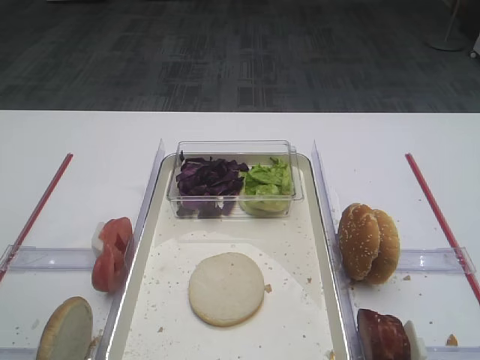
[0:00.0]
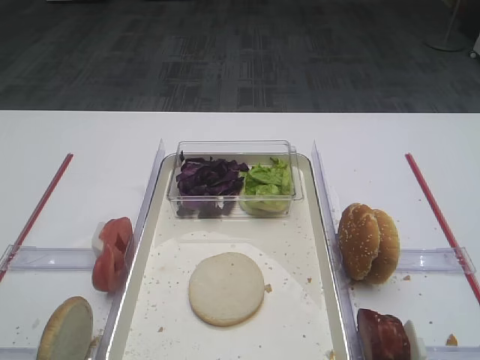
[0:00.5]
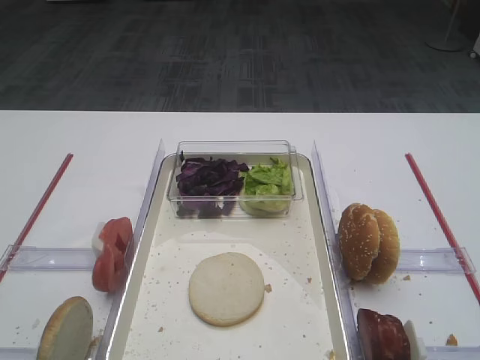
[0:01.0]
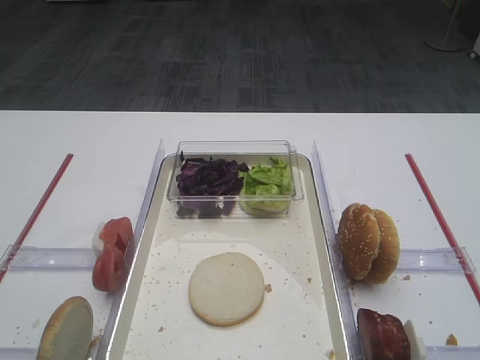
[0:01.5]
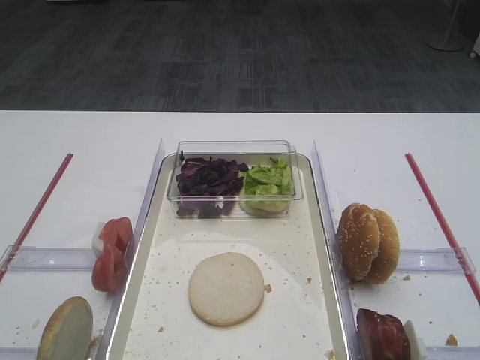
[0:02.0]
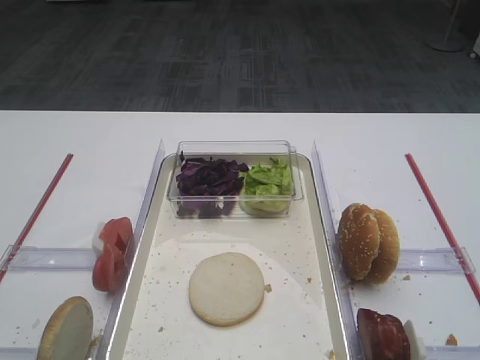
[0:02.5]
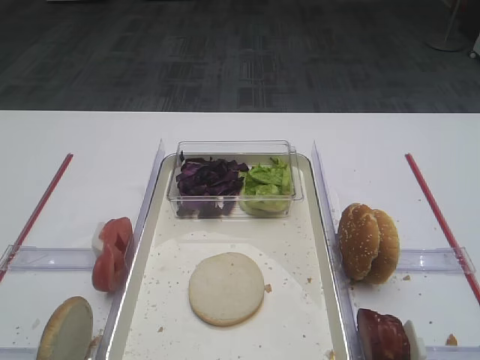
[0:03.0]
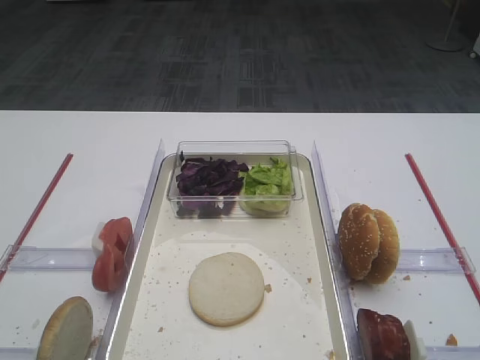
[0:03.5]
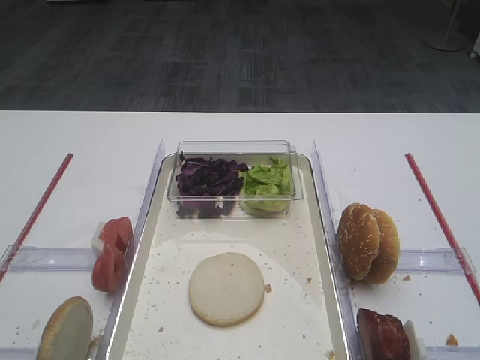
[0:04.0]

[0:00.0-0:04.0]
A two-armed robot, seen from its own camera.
0:02.0 to 0:04.0: The two grippers keep their place.
